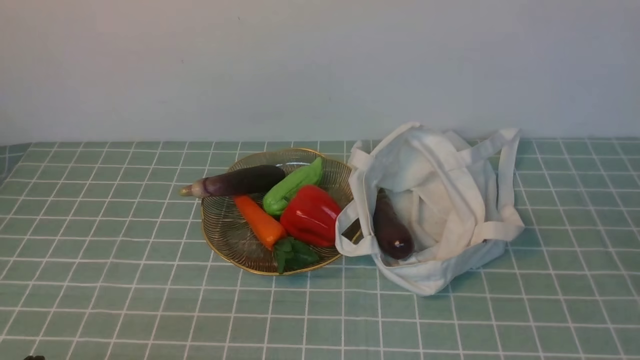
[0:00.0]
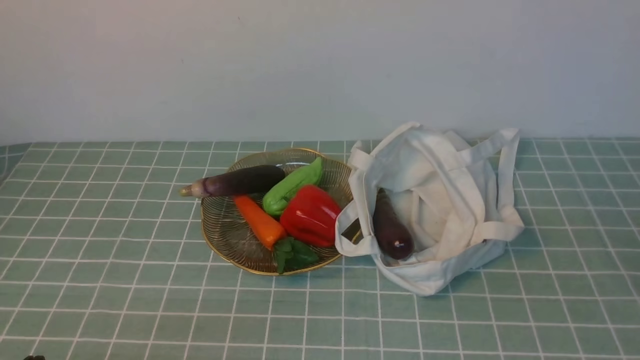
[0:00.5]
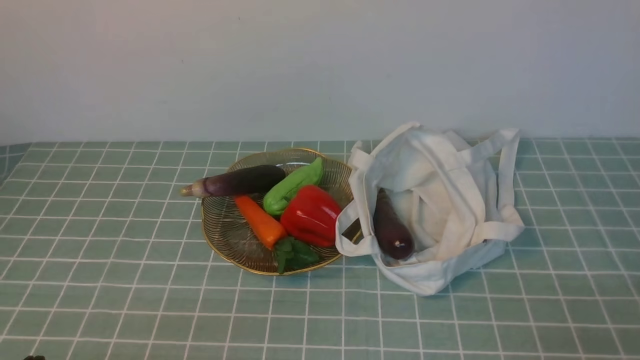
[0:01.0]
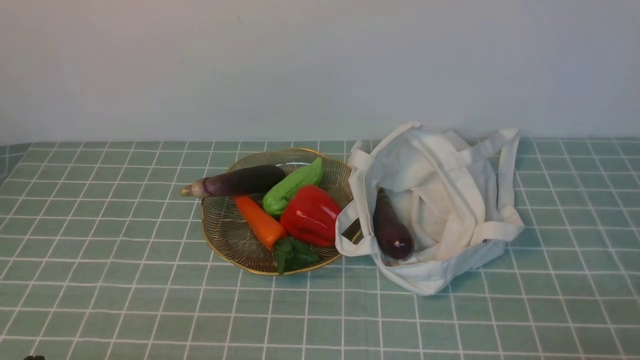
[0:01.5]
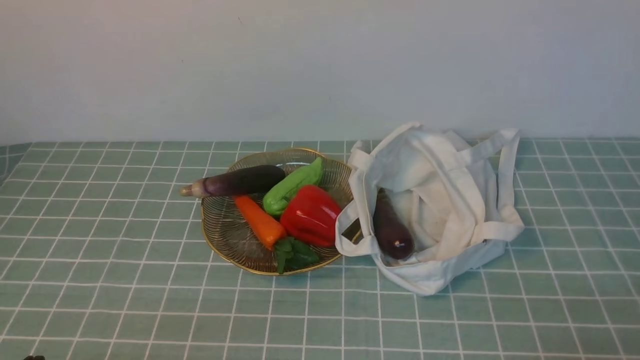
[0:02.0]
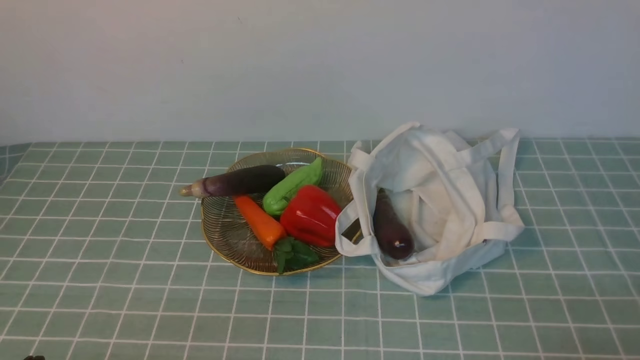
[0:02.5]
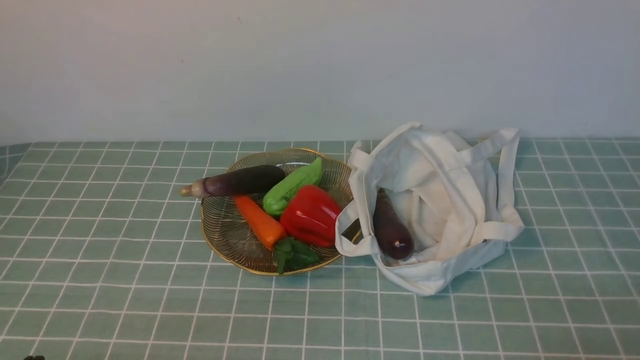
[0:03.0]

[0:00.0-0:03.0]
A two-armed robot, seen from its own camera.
Task of the whole recording: take vegetables from cloth bag on blue coffee tablecloth place on plate.
0:01.5 to 0:03.0: The two grippers keep their place.

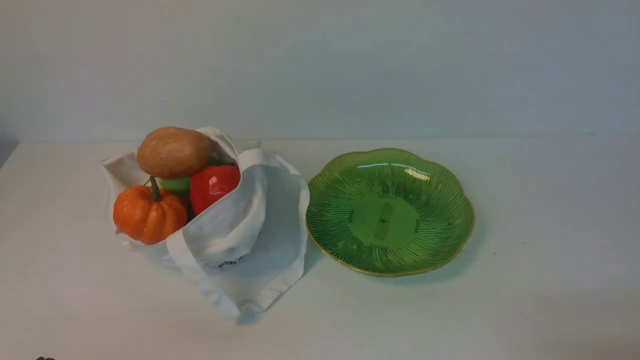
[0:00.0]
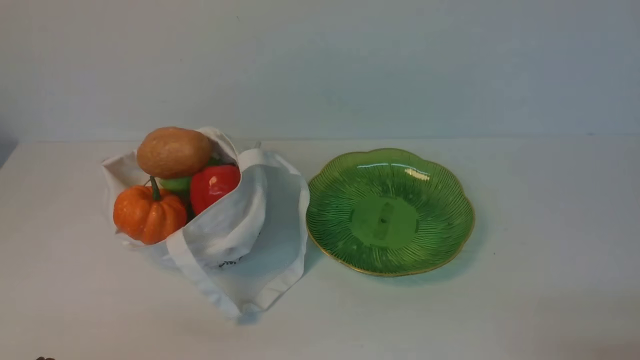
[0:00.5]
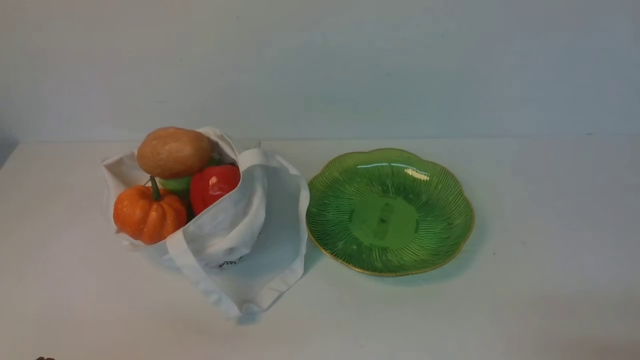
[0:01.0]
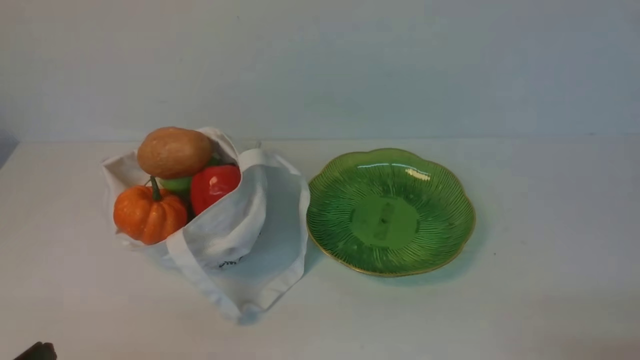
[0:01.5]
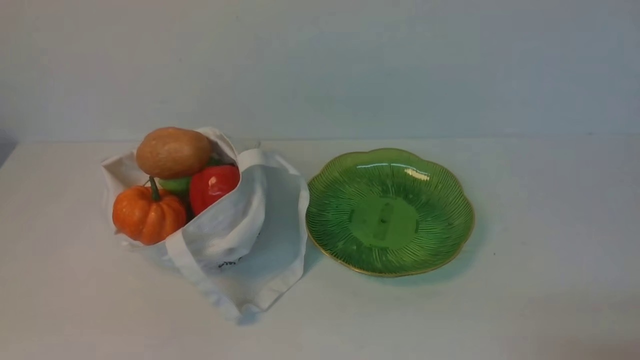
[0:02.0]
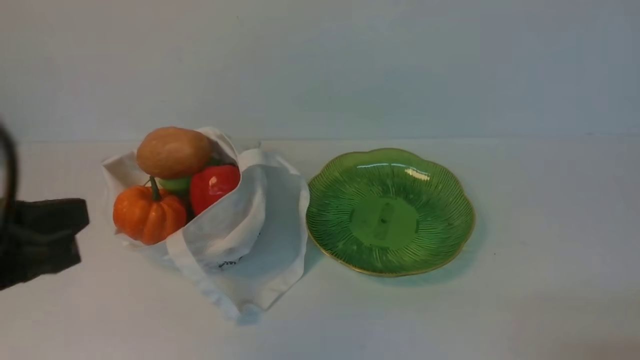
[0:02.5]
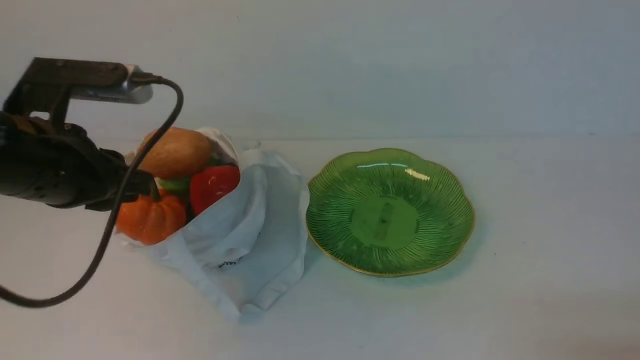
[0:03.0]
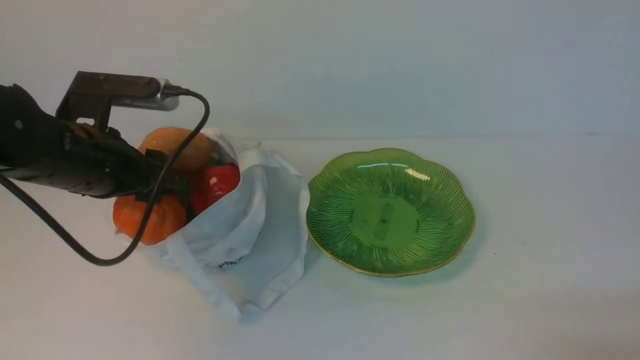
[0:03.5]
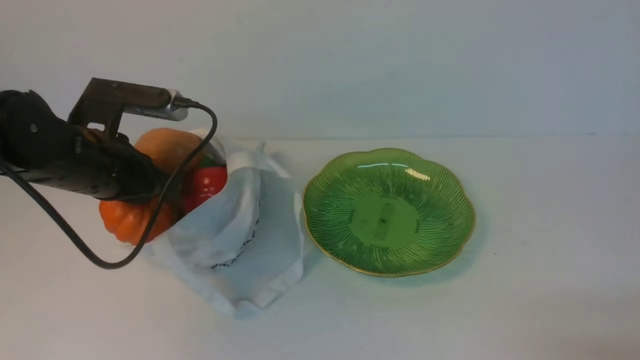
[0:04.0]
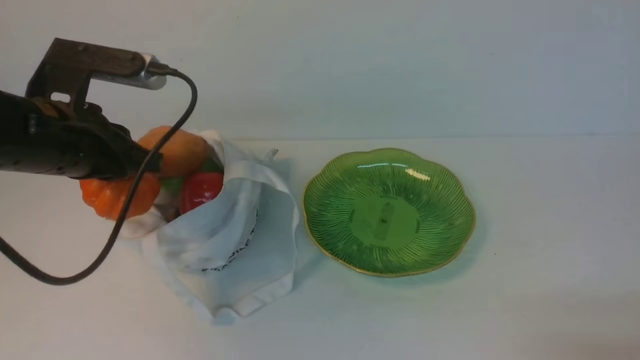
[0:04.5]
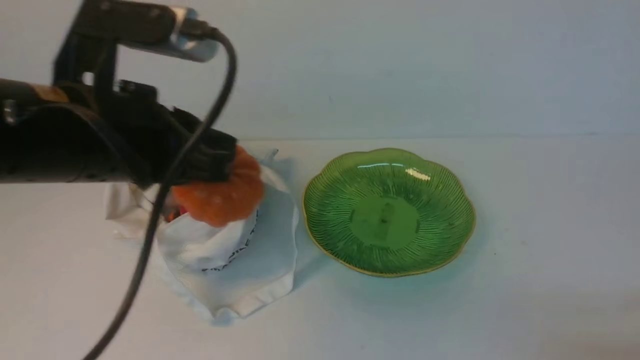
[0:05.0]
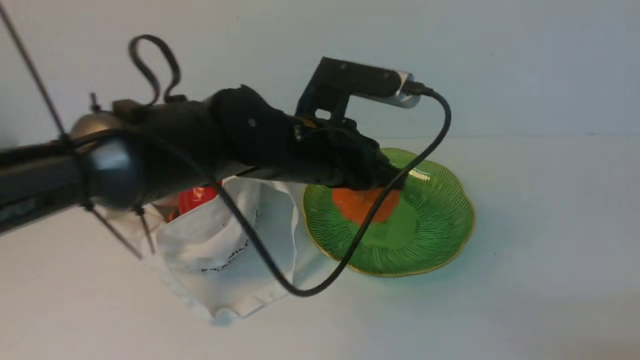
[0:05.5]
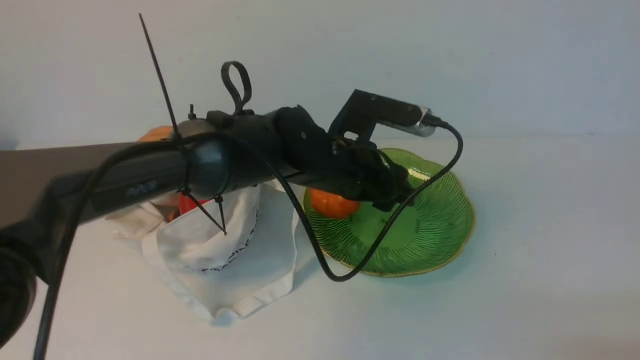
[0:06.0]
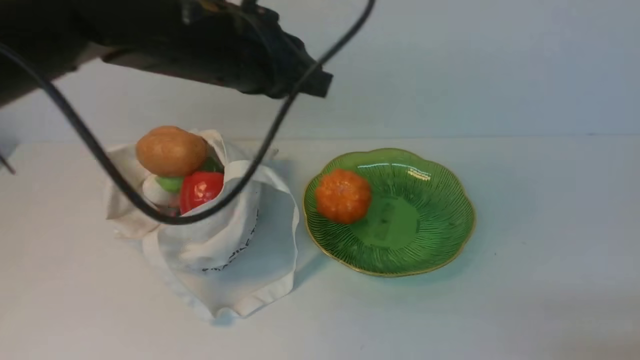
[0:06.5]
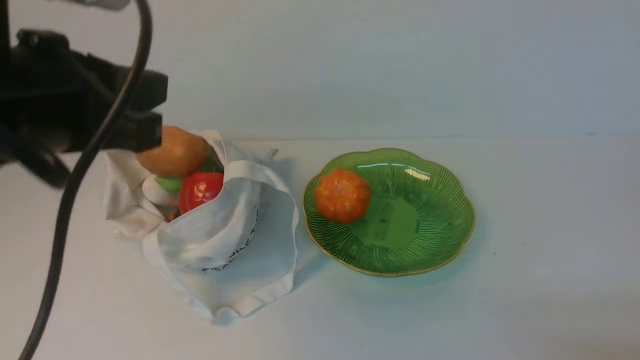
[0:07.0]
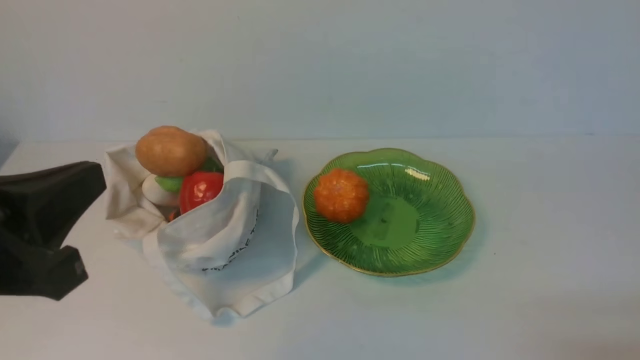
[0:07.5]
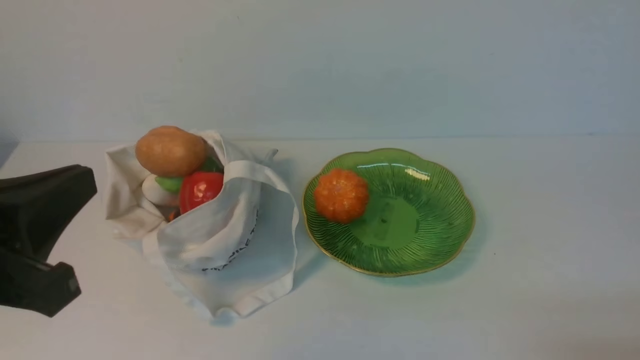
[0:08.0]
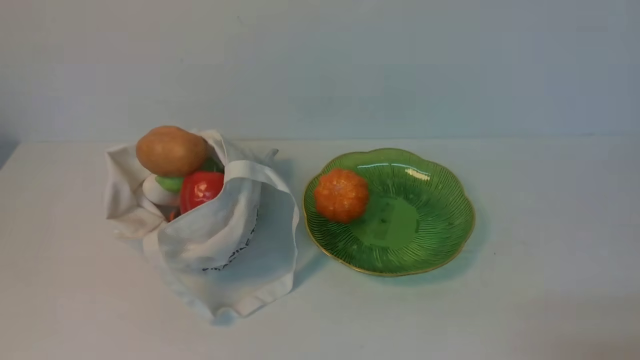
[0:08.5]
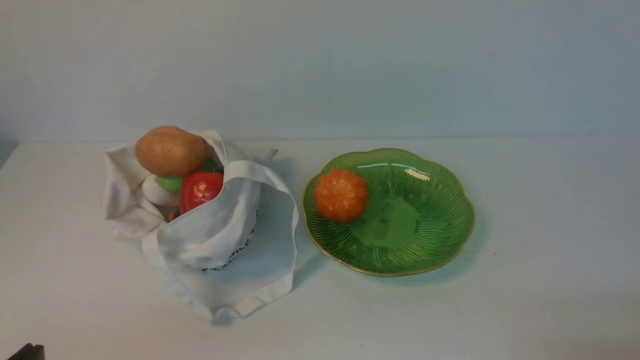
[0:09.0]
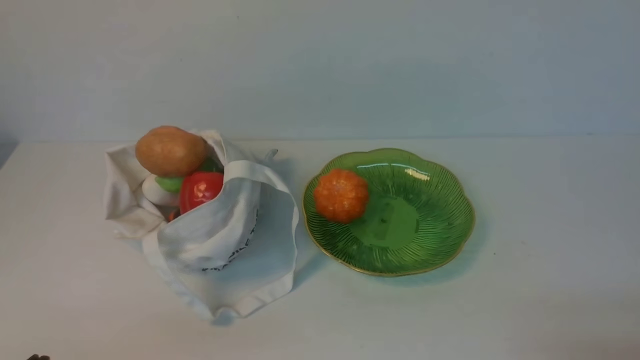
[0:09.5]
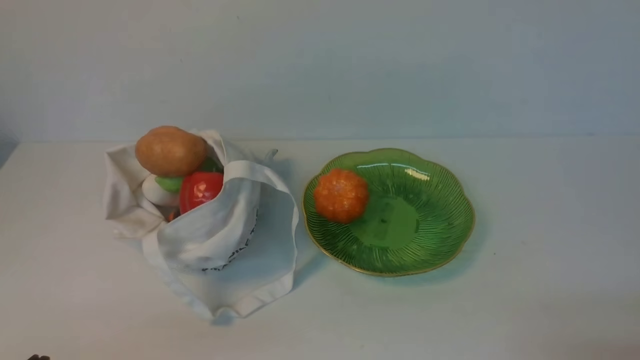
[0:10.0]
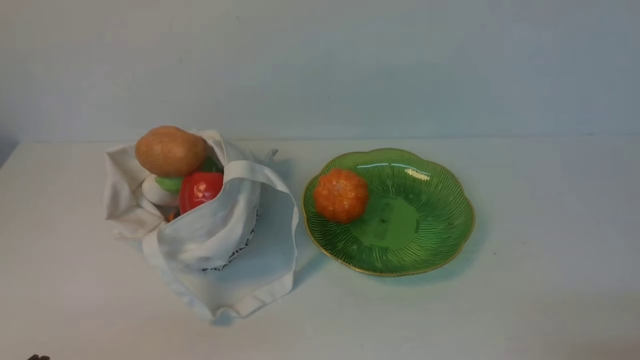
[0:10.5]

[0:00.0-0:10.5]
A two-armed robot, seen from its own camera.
Task of the whole recording: take vegetables from cloth bag on white table place on plate.
Step, 0:00.0 to 0:04.0: Grasp the pumpkin with left gripper.
Step, 0:04.5 to 0:05.5: Place the pumpkin on the plate with left gripper.
0:02.0 to 0:04.0: The left gripper shifts approximately 25 cm forward, and opens and closes again.
0:04.0 to 0:06.5: The left gripper is displaced upward and to the right by some 15 cm, and opens, then closes once more.
0:06.5 to 0:08.5: The left gripper heads backward and to the left, covering approximately 30 cm.
